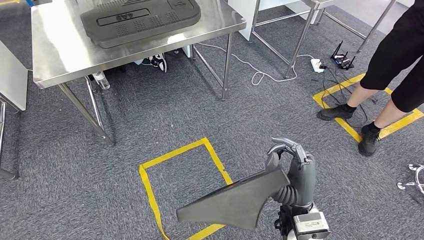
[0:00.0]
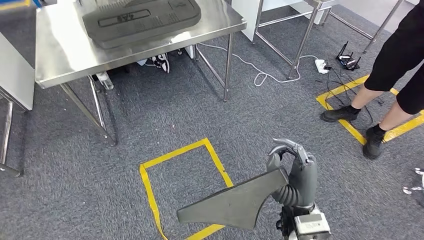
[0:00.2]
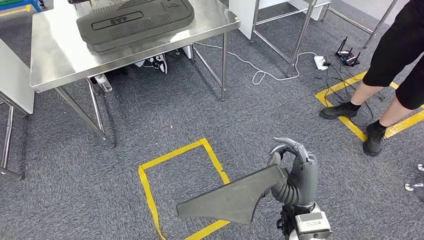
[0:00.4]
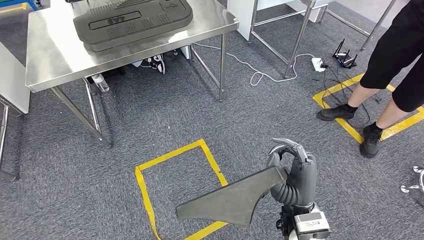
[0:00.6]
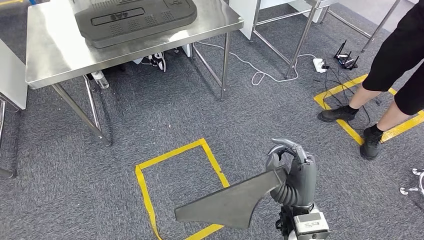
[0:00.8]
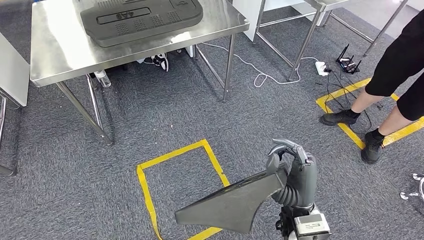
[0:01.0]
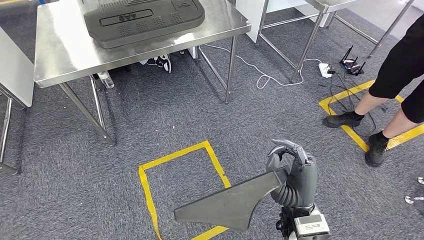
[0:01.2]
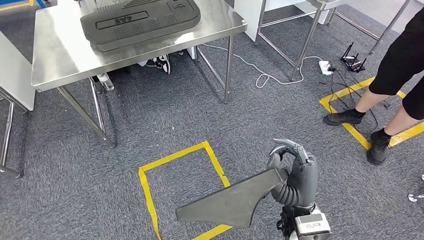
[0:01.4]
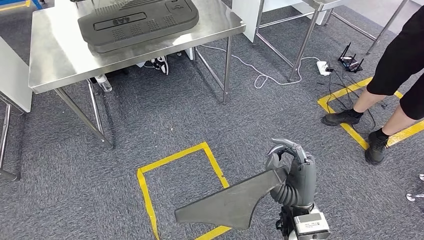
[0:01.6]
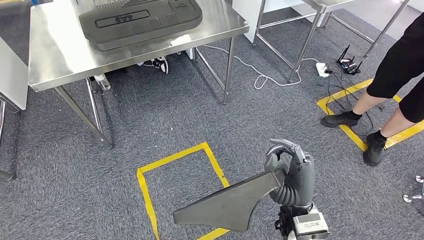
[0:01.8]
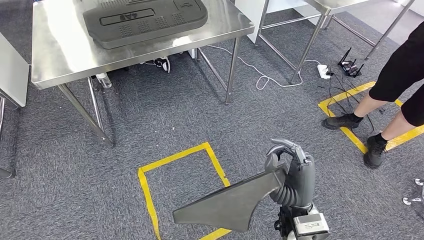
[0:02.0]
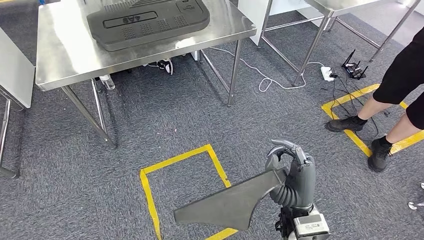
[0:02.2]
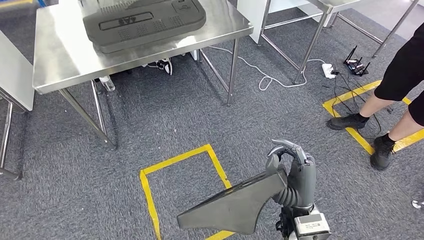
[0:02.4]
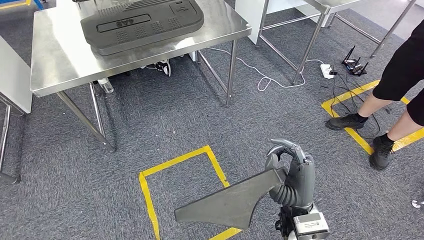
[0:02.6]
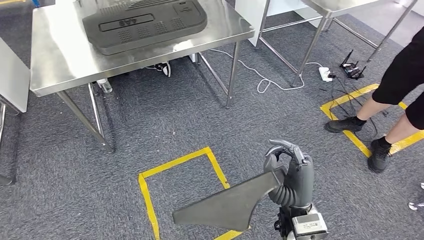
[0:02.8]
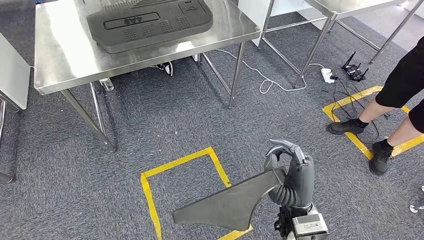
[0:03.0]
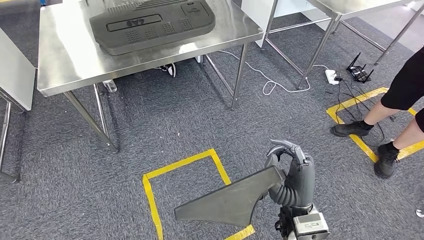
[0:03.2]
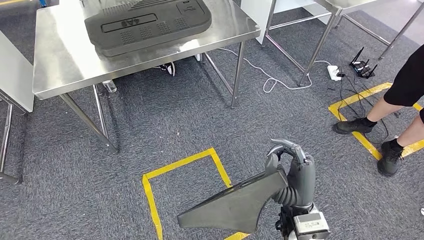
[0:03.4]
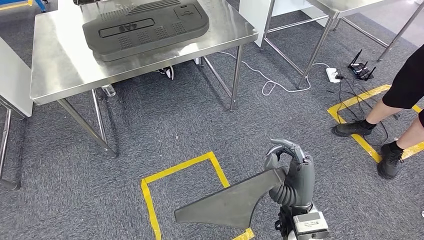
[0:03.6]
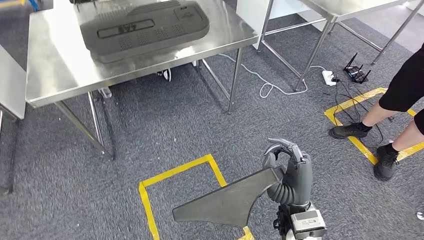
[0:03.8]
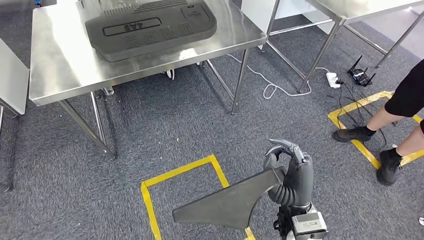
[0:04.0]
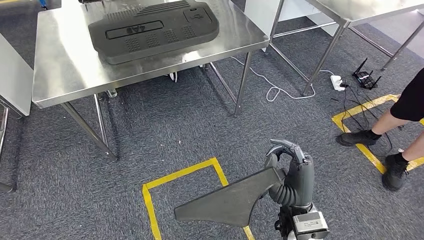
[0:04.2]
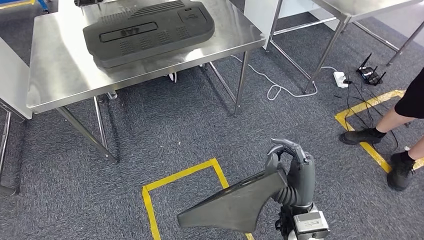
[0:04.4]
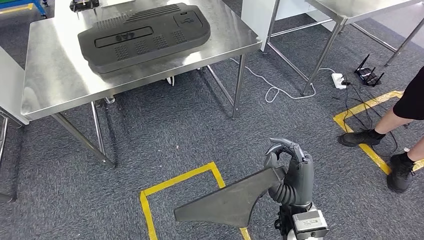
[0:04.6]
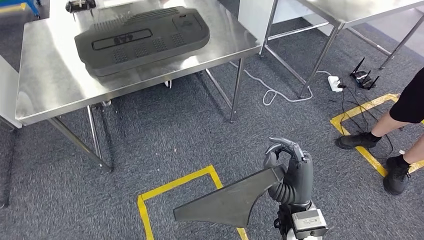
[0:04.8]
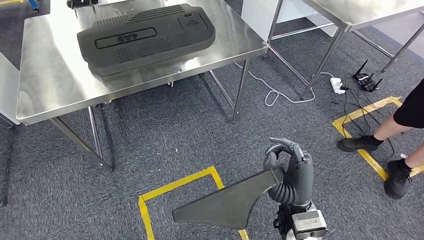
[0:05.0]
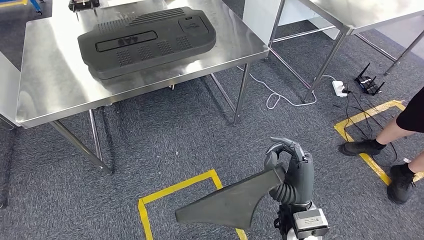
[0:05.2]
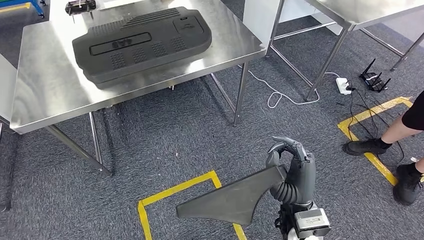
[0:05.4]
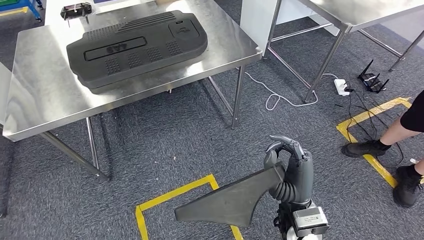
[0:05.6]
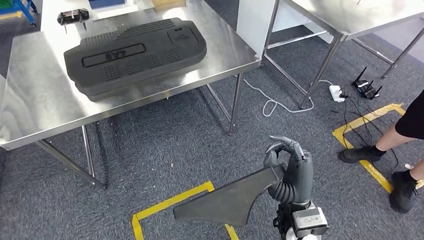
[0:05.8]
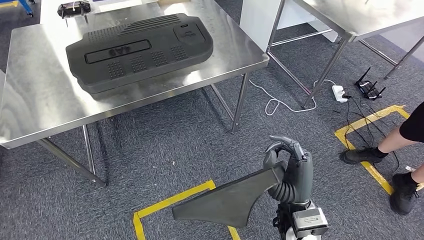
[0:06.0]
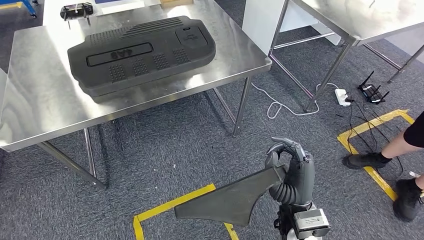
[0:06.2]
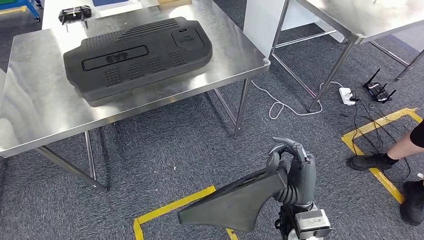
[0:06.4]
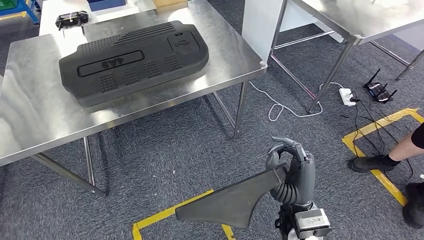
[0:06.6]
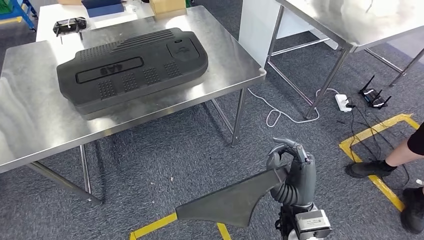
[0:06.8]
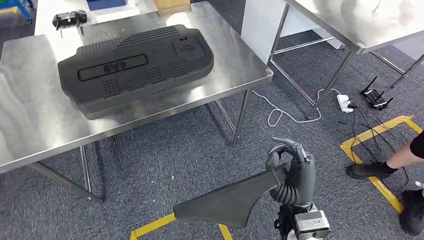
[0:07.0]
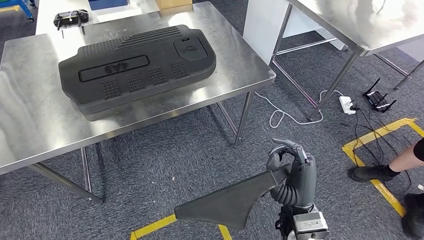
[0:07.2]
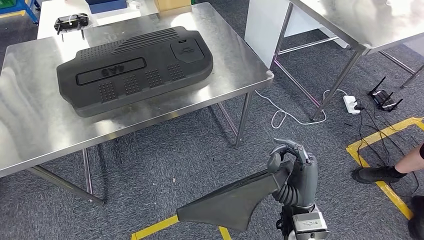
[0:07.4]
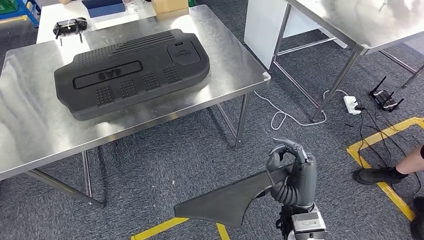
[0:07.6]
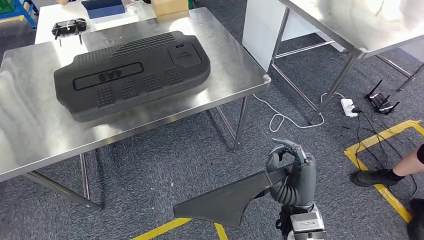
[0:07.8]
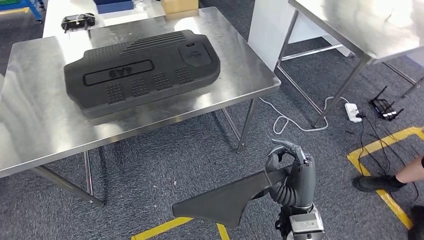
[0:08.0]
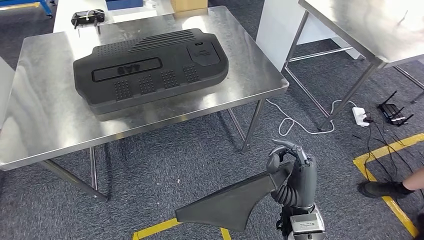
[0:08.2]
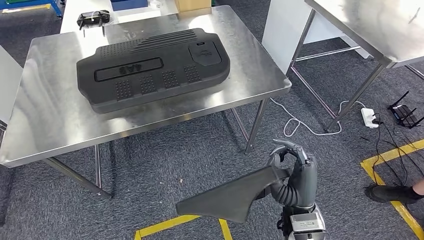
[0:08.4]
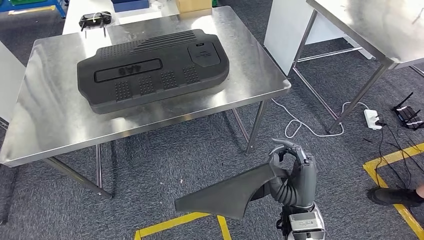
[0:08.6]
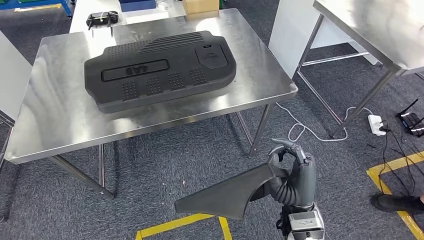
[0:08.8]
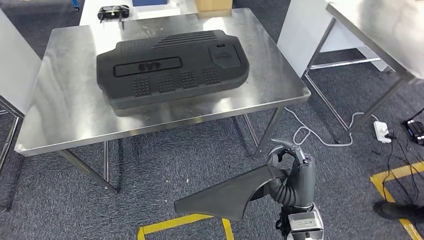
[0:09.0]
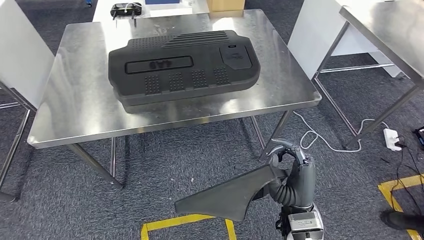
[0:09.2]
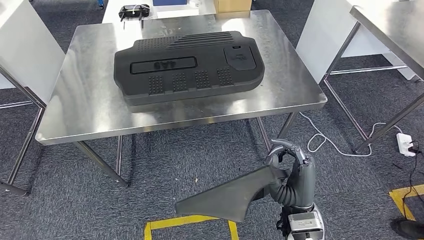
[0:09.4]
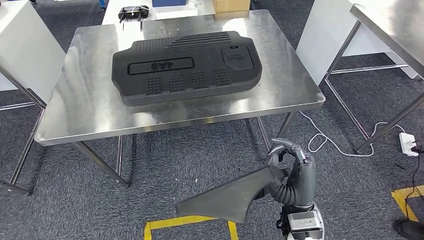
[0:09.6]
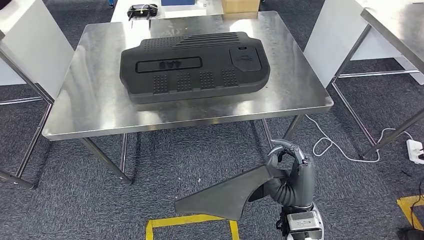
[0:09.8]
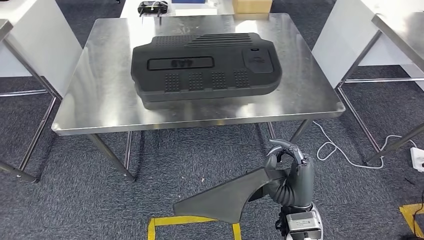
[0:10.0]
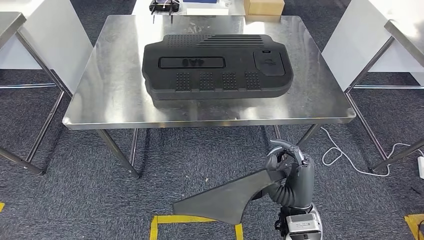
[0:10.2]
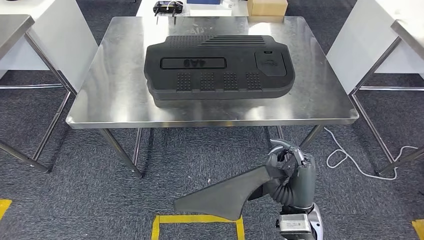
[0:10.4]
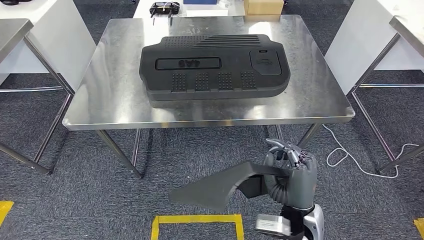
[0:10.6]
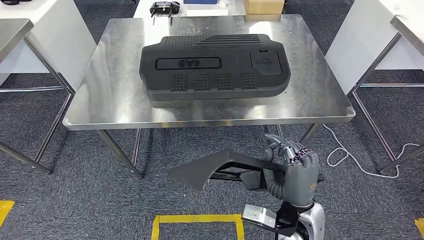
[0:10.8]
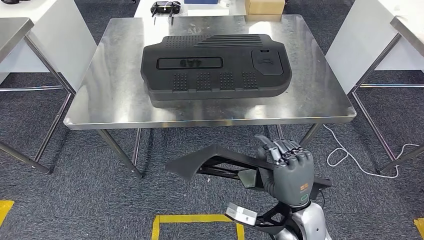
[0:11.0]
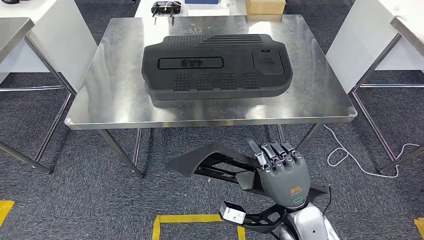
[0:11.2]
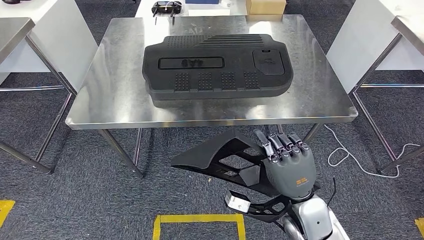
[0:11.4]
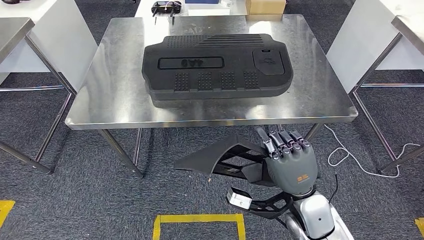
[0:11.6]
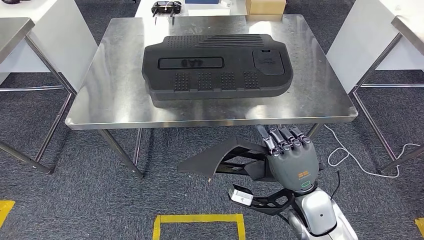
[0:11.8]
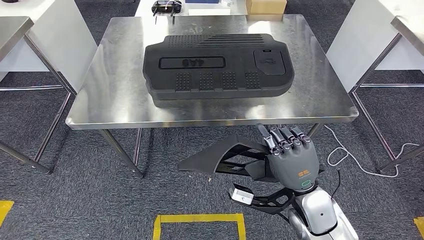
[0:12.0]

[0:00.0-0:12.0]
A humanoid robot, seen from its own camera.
0.0 to 1.6 s: Both hands stay put.
10.4 to 12.0 s: The right hand changes place by some 5 cm.

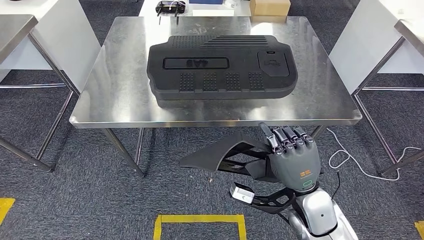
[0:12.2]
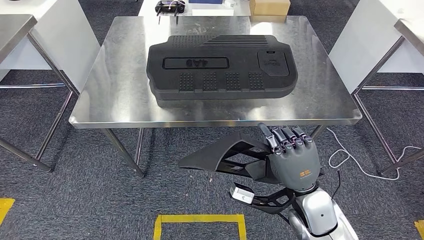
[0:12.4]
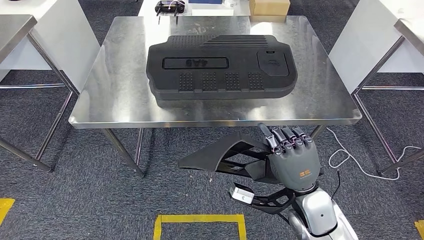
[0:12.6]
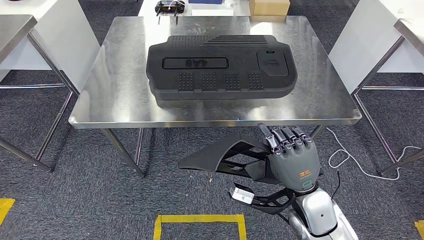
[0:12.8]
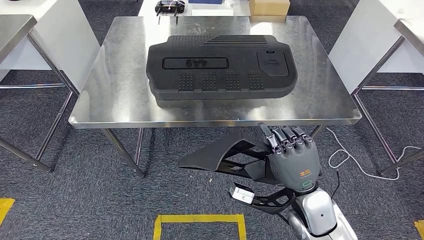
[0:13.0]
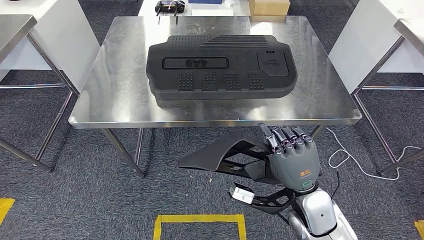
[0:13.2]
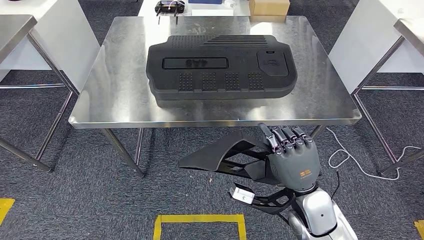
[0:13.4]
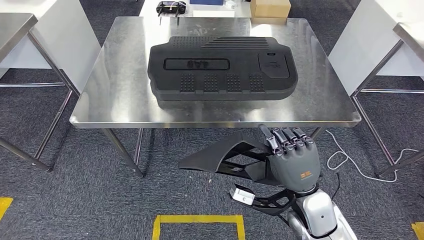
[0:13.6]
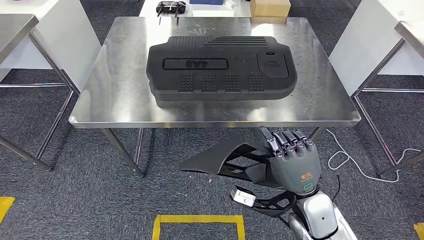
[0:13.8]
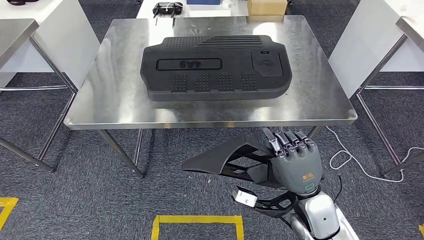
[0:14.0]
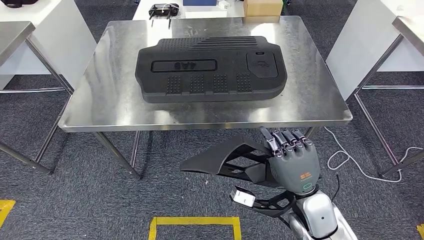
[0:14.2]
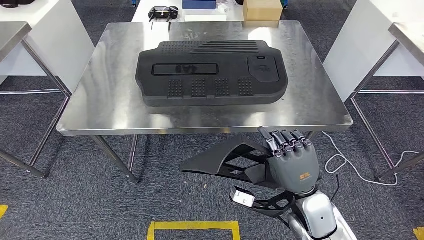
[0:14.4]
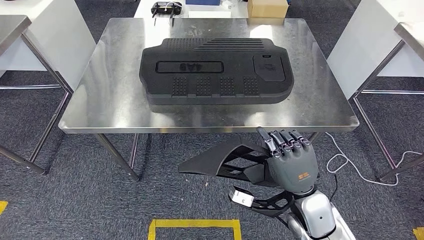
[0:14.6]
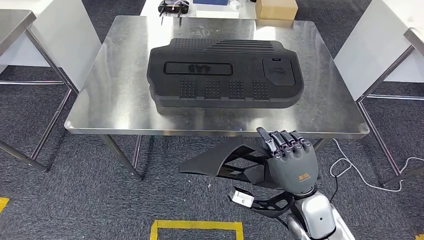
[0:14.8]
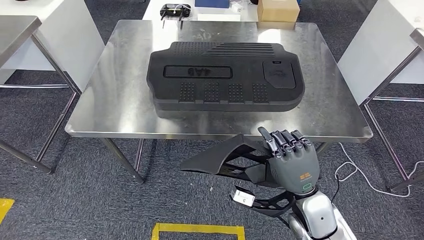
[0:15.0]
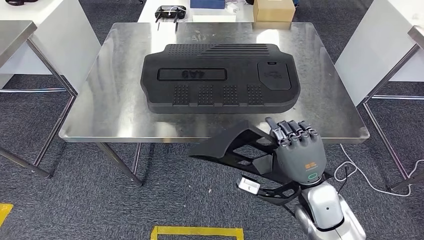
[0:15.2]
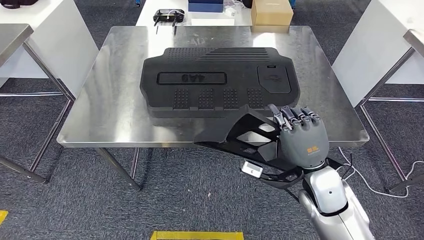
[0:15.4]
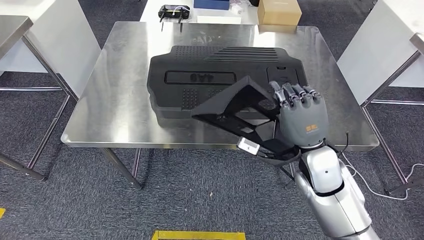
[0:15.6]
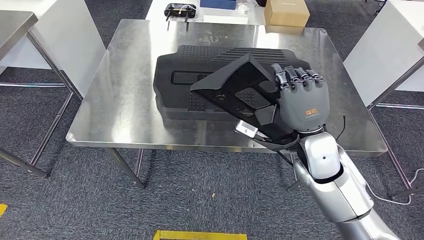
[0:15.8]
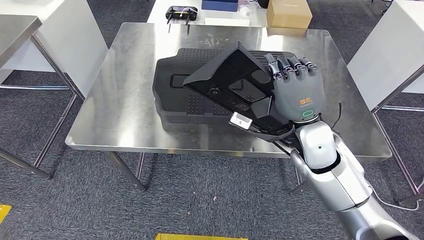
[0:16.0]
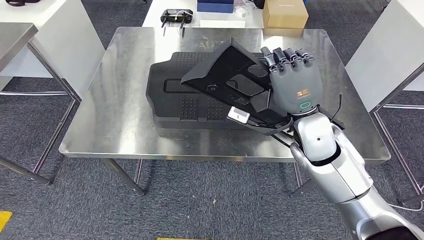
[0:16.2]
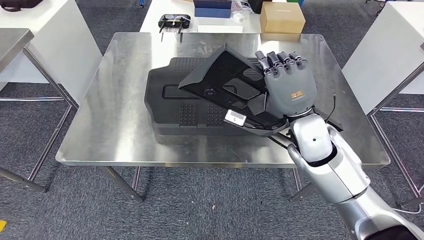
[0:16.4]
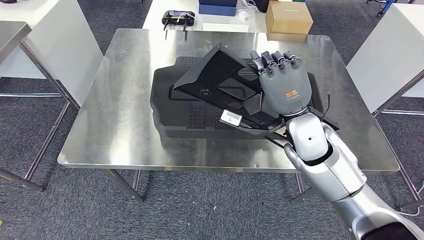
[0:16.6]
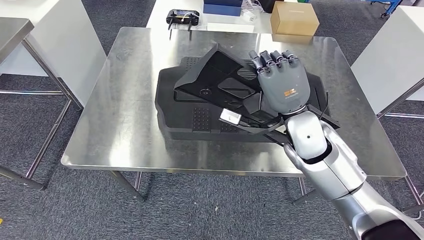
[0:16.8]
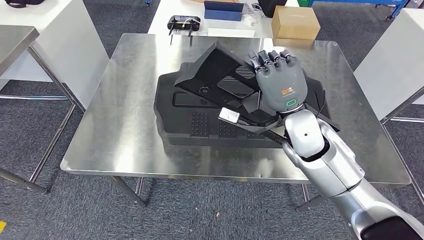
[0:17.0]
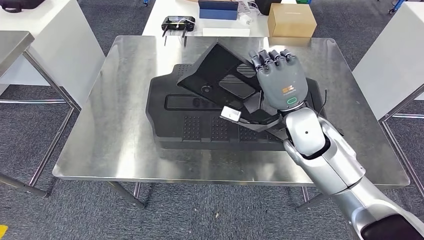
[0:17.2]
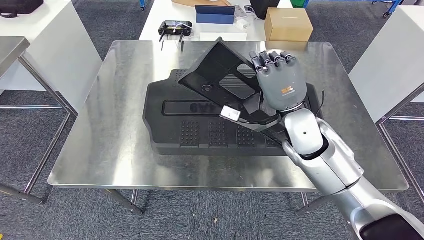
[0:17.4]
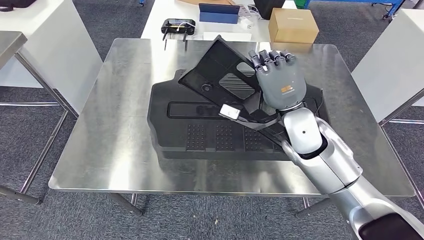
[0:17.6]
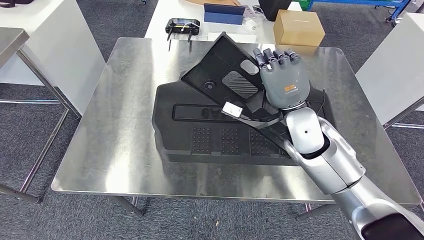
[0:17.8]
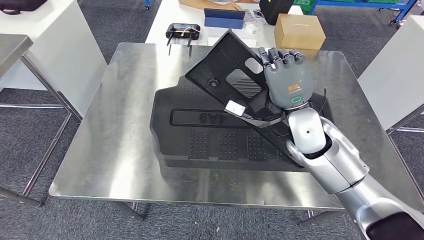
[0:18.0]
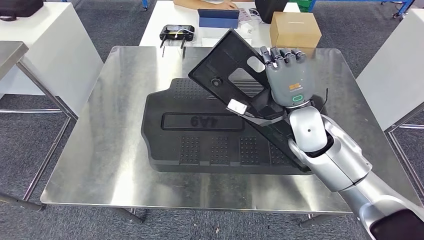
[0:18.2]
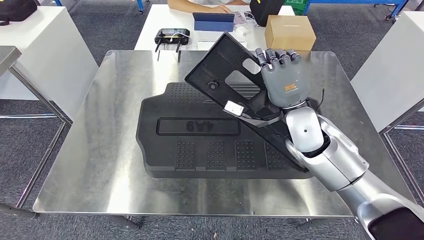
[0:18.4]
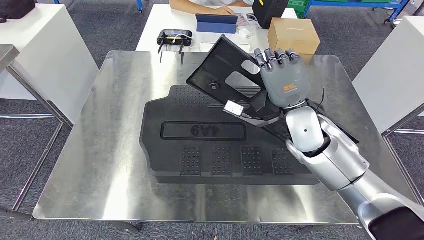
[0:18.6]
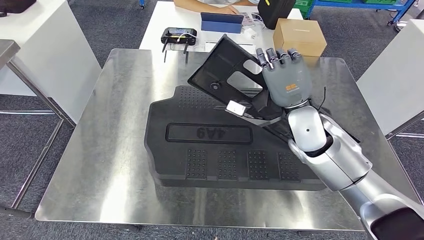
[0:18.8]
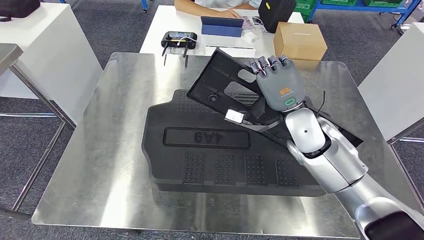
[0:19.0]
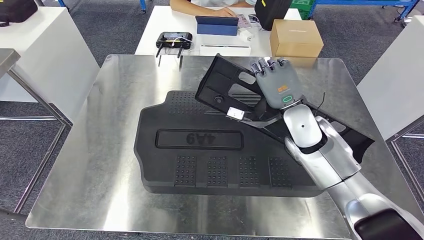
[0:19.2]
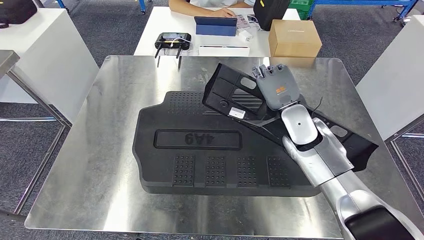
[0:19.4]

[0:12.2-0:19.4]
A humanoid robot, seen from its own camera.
Step, 12.2 to 18.0 s: Move the large material to the front of the workbench.
12.2 to 13.6 s: Both hands stay about where they are.
